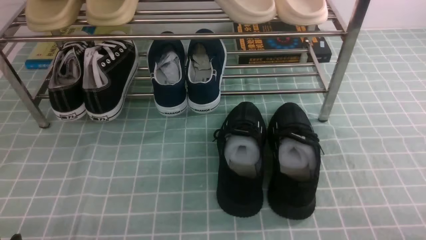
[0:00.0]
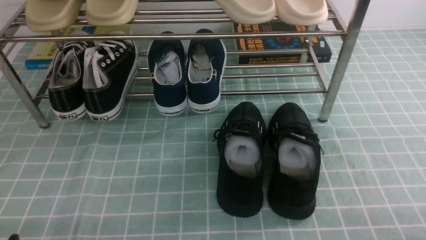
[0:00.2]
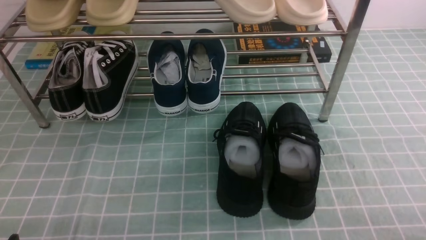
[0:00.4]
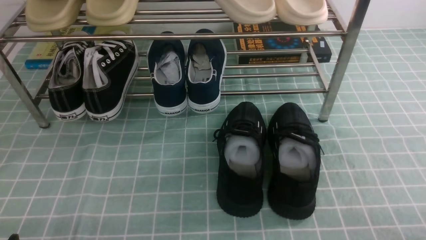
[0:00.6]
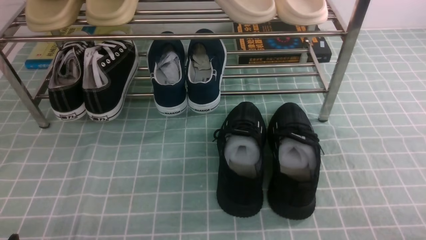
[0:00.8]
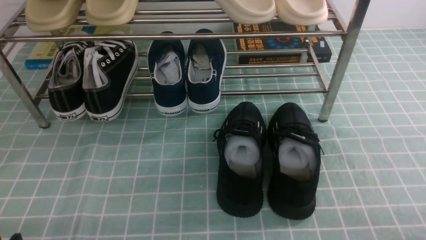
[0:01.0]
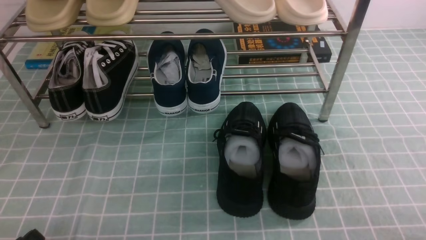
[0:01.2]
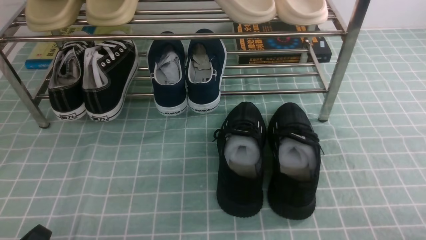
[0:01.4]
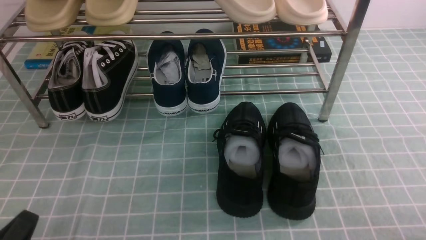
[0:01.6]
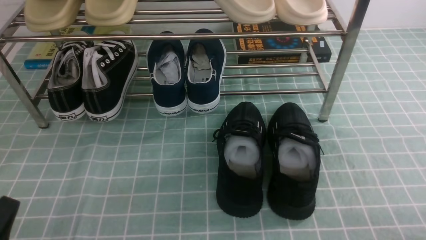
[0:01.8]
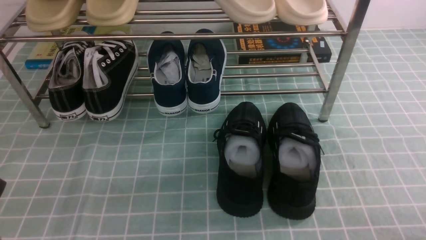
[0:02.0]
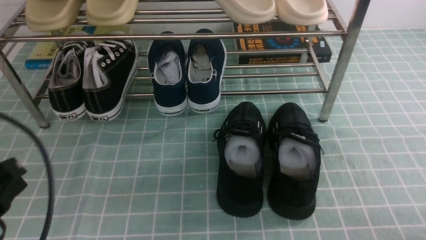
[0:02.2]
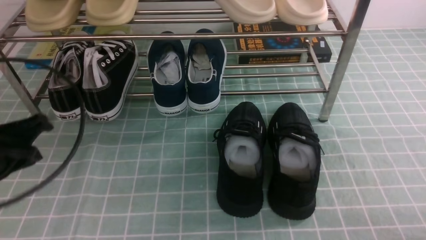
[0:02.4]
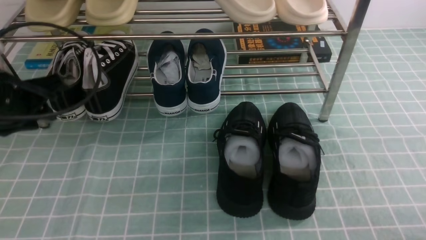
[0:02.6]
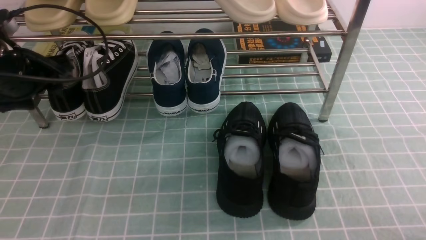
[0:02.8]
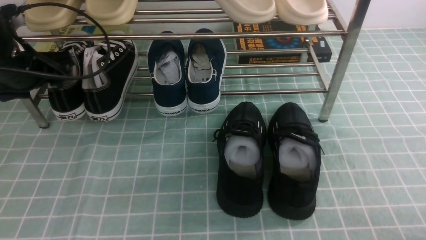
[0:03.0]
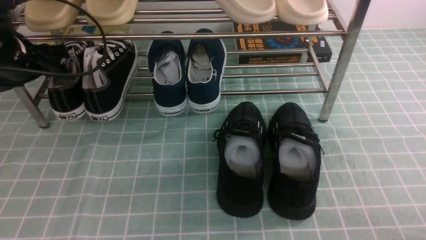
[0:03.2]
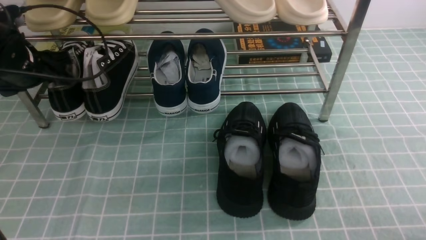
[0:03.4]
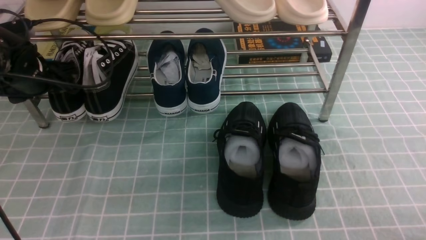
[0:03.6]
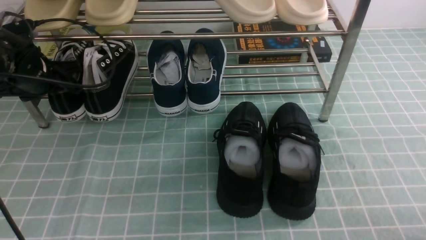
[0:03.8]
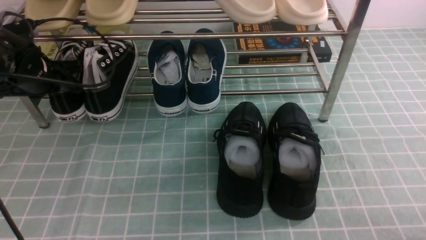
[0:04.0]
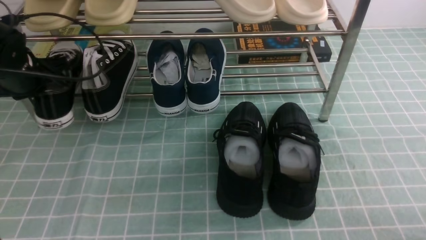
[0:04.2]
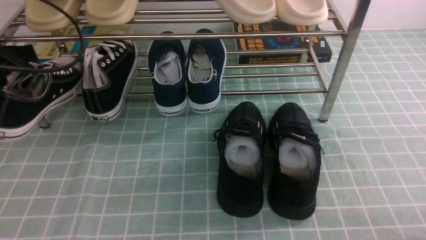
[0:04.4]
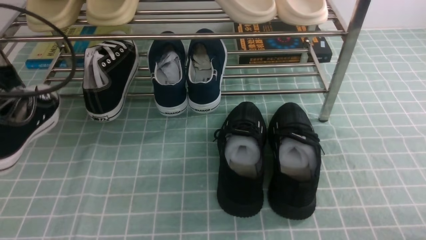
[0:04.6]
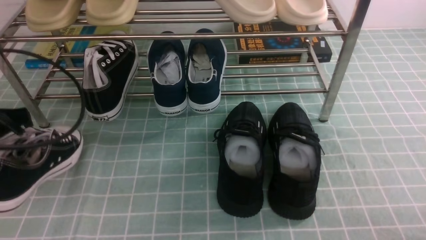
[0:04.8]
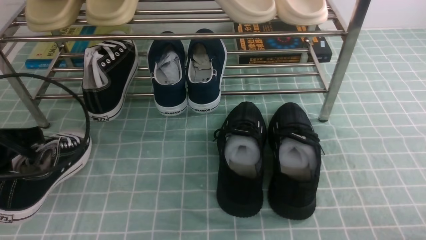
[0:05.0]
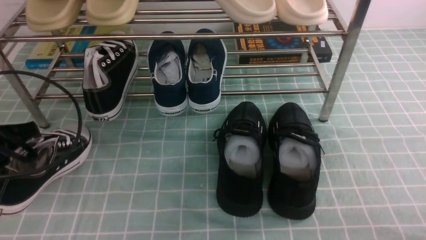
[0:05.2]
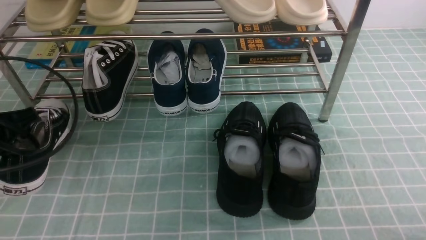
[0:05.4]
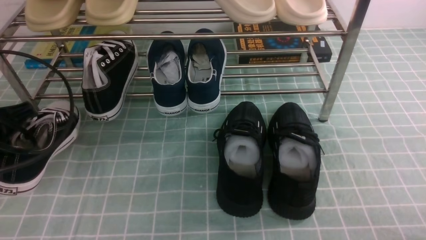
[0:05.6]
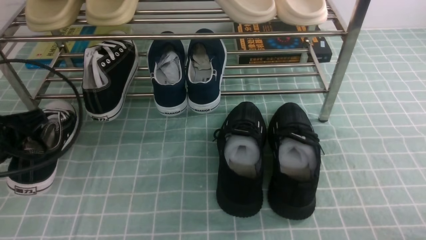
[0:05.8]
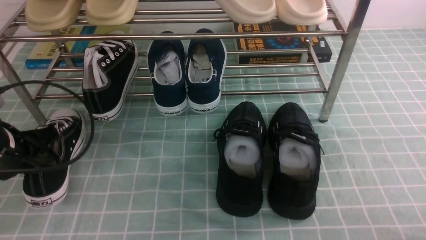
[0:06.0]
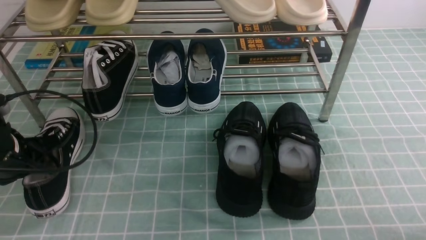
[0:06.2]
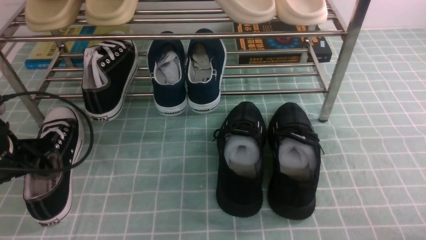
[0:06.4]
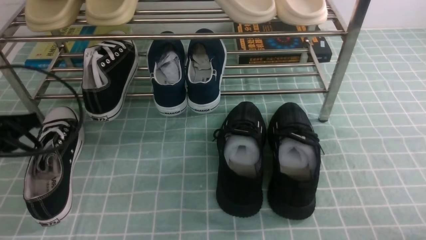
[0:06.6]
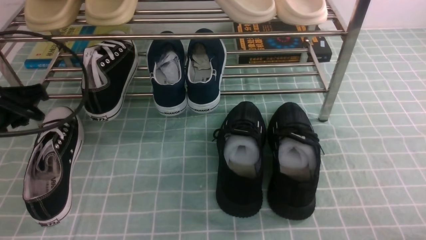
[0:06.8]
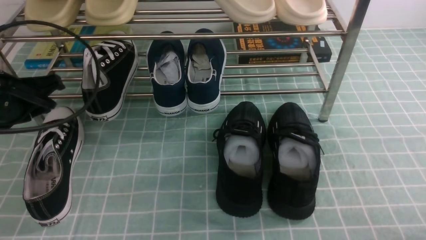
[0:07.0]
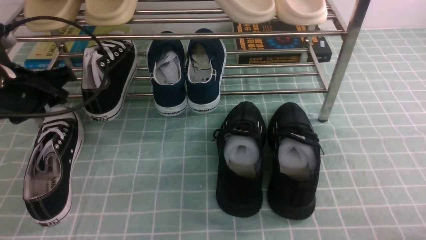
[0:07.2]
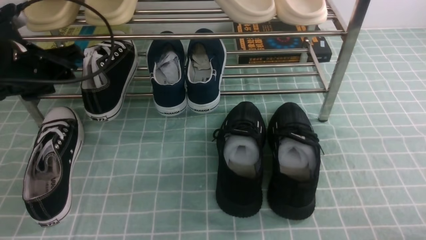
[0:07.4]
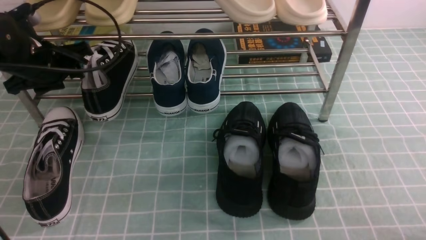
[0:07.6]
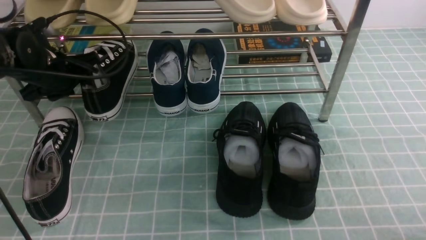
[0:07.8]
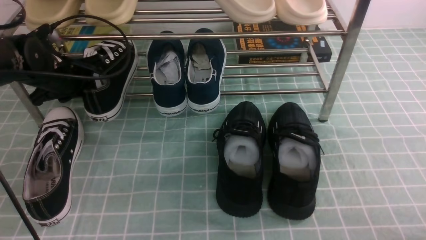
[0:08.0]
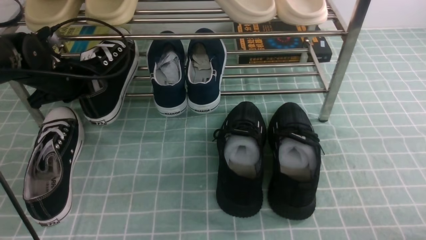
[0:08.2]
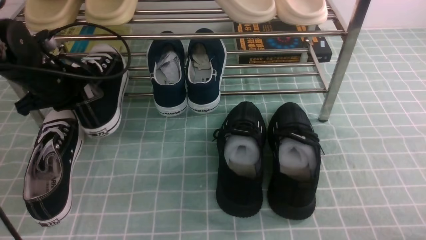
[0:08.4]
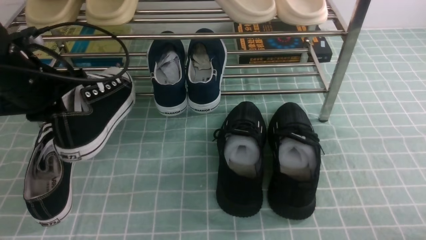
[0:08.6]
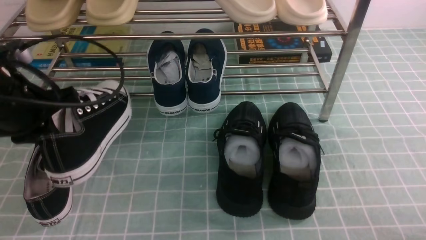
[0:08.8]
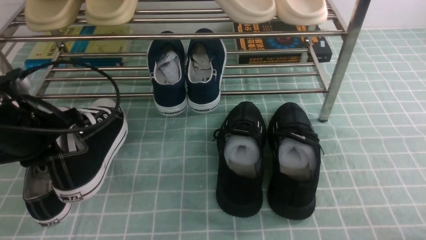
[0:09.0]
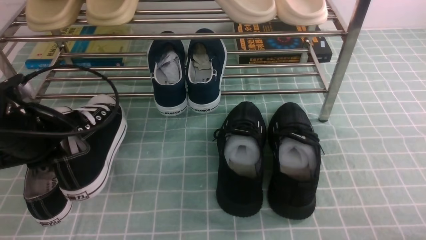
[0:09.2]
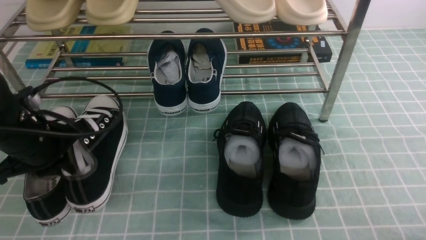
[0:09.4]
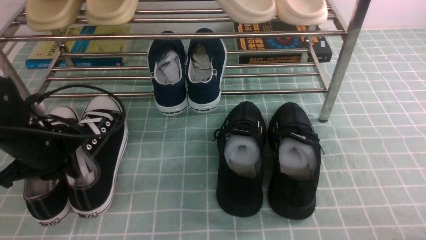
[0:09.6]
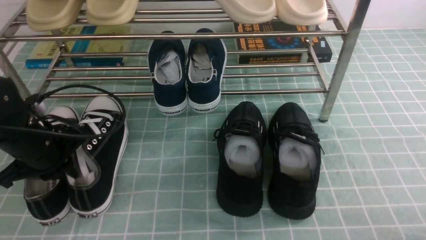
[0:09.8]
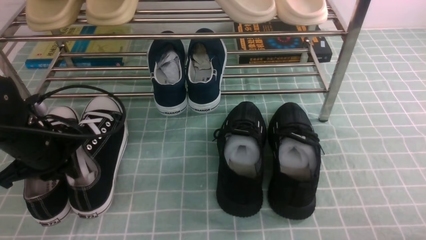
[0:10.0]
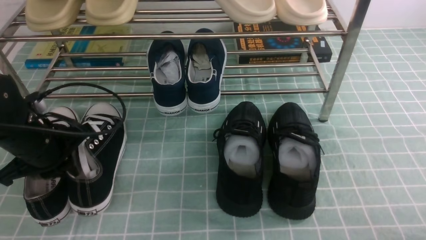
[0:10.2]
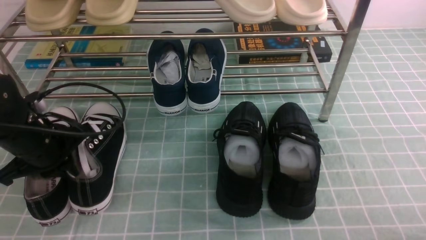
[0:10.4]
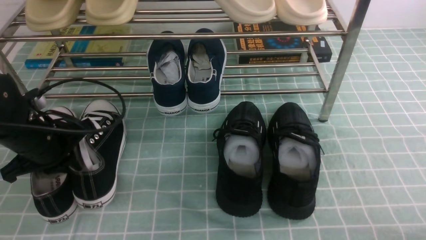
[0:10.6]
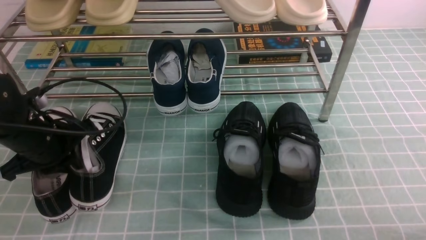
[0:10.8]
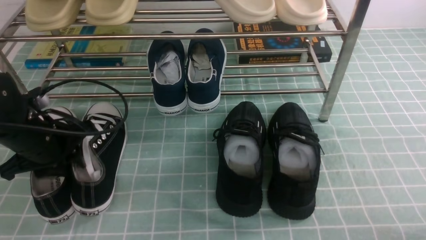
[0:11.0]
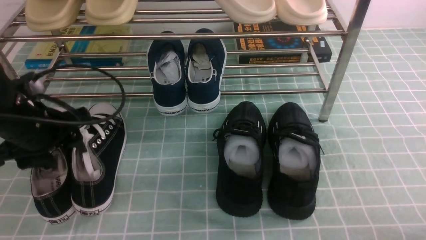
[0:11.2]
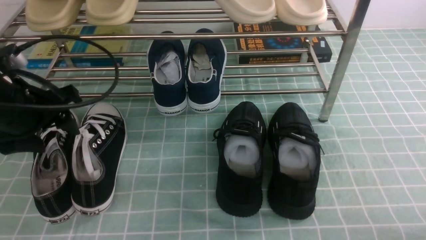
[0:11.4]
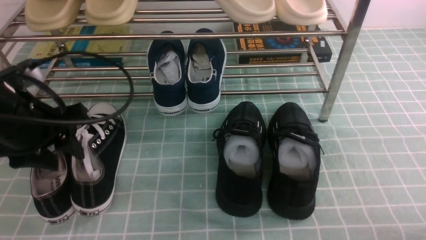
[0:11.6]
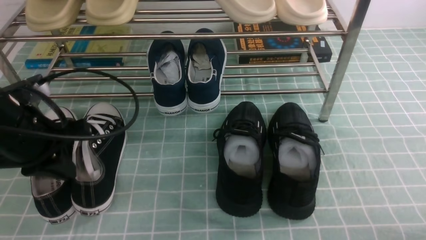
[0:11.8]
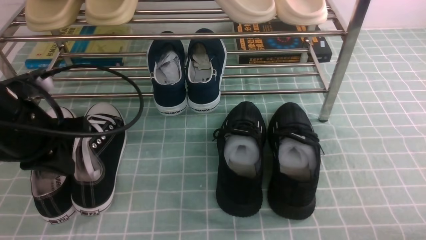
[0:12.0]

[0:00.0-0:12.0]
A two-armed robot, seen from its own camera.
Step, 0:00.0 to 0:03.8: use the left arm to clamp a shoe on the left side of the shoe rack.
Step, 0:04.0 to 0:06.8: Use your left arm to remove the clamped shoe from the shoe rack and put it down.
Step, 0:07.0 to 0:08.0: use the left arm to clamp a shoe on the left side of the shoe rack.
Step, 0:08.2 to 0:11.4: Use your left arm to remove the clamped shoe from the shoe rack and put it down.
0:01.6 to 0:03.0: The left gripper moves forward and upward, roughly 30 cm, and opens its fingers.
0:03.0 to 0:04.4: The left gripper closes its fingers.
0:04.4 to 0:06.0: The left gripper heads backward and downward, covering some 10 cm.
0:06.0 to 0:07.6: The left gripper travels forward by roughly 10 cm, and opens up.
0:07.6 to 0:09.0: The left gripper shifts some 10 cm backward, and closes its fingers.
0:09.0 to 0:10.4: The left gripper is displaced downward by approximately 5 cm.
0:10.4 to 0:12.0: The left gripper goes approximately 5 cm upward, and opens, then closes again.

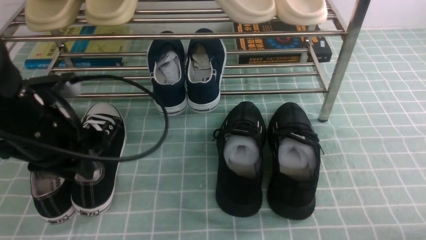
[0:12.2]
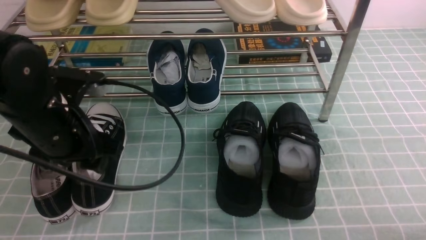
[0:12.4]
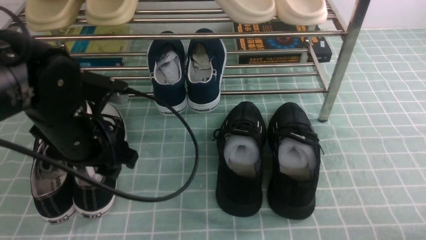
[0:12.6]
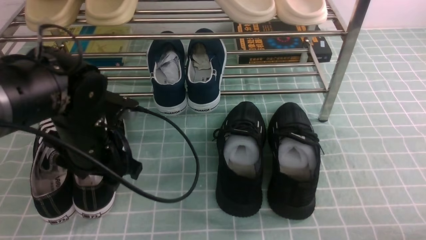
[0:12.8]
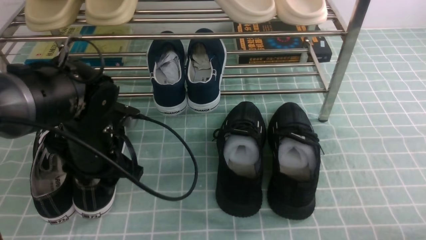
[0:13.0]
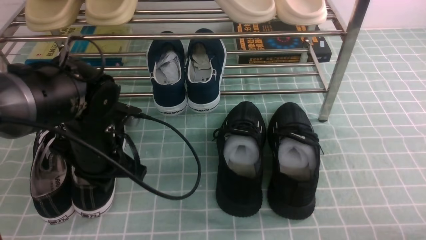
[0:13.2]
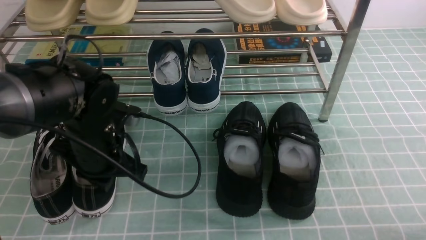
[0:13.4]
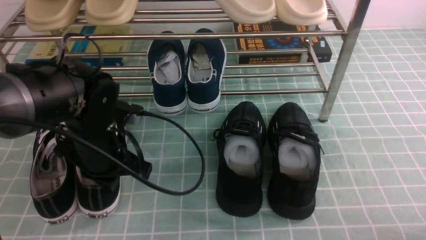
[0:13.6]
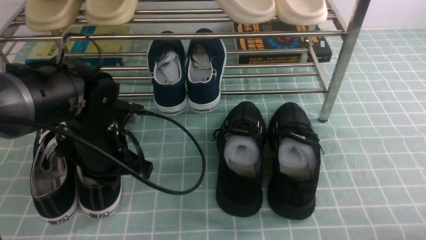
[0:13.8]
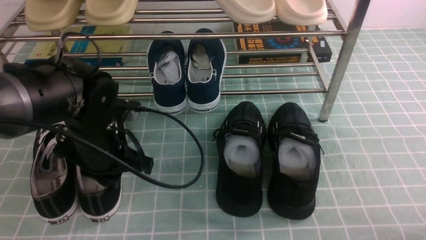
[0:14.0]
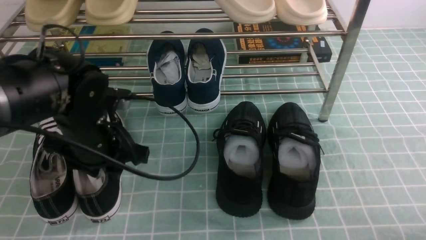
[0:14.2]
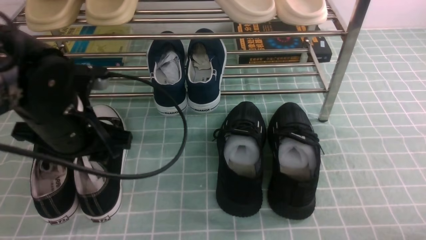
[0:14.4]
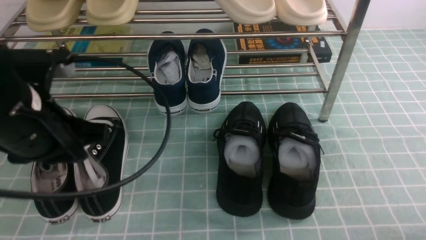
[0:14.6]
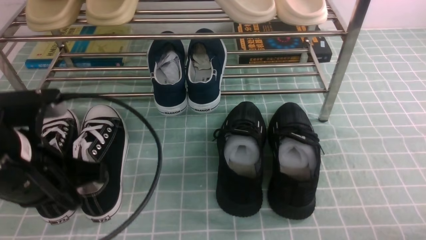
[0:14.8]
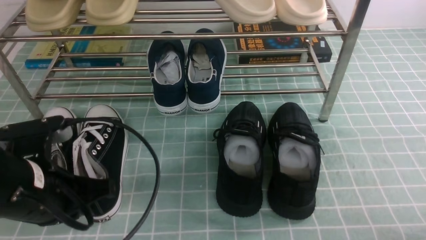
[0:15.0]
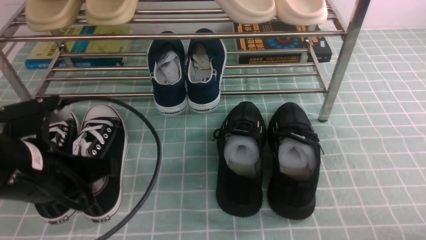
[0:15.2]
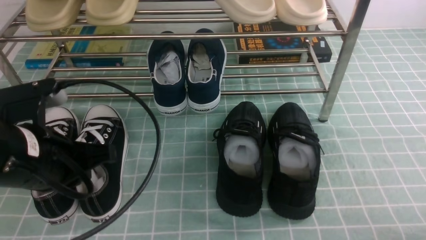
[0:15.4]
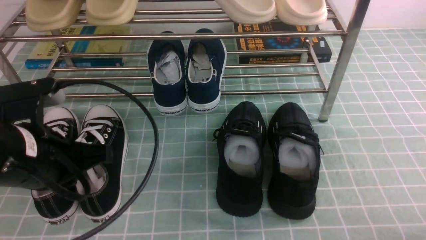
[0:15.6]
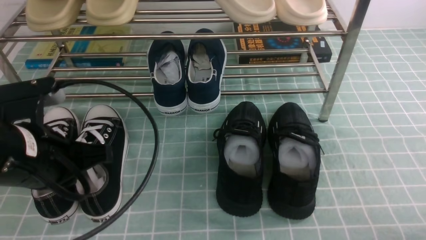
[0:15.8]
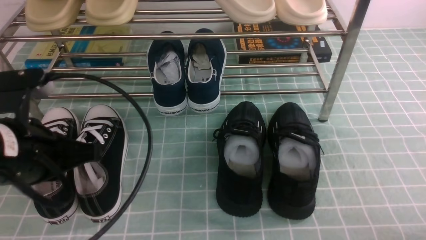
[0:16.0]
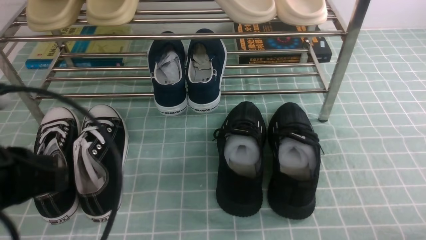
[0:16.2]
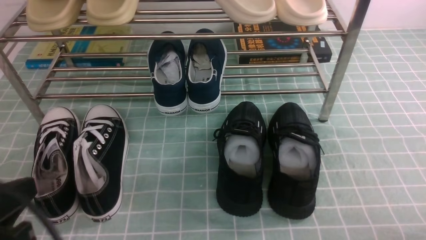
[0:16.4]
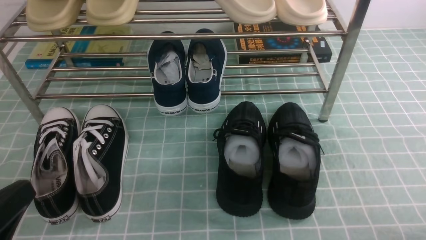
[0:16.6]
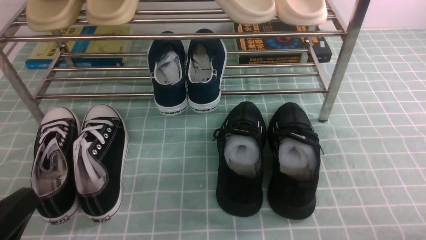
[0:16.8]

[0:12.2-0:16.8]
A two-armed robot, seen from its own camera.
0:12.2 to 0:13.8: The left gripper travels to the right and downward by about 10 cm, and opens and closes again.
0:13.8 to 0:15.2: The left gripper is displaced backward and upward by about 10 cm, and opens, then closes once more.
0:15.2 to 0:16.8: The left gripper heads backward, covering some 15 cm.
